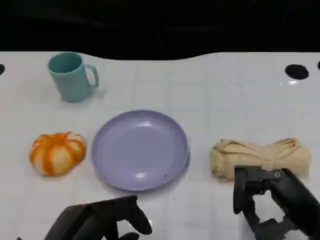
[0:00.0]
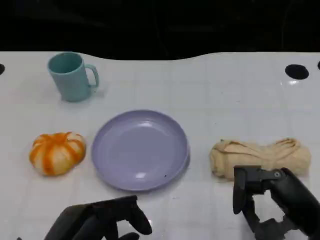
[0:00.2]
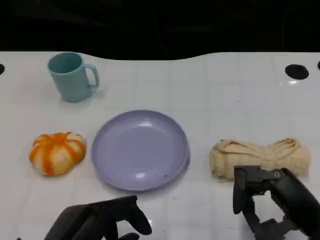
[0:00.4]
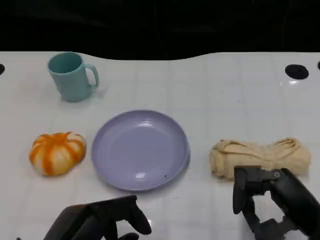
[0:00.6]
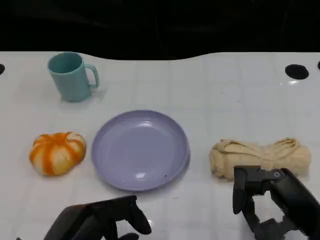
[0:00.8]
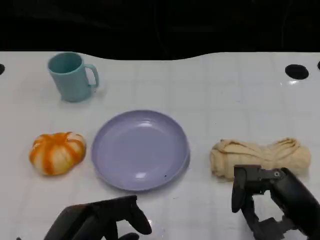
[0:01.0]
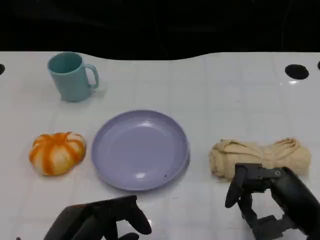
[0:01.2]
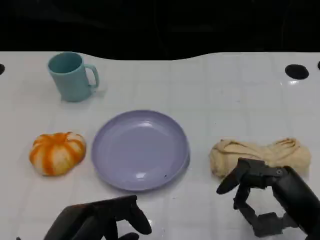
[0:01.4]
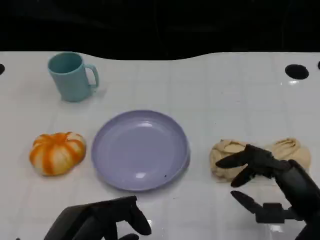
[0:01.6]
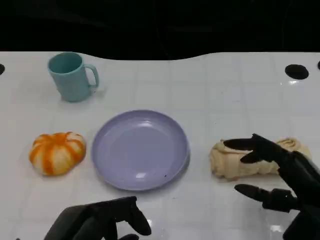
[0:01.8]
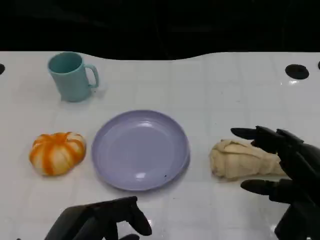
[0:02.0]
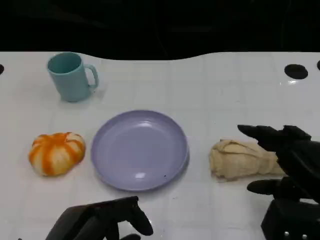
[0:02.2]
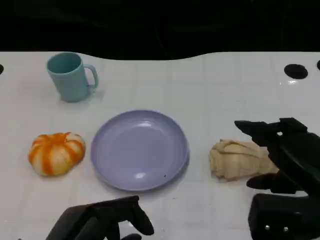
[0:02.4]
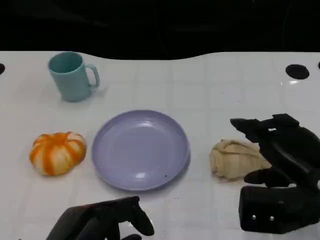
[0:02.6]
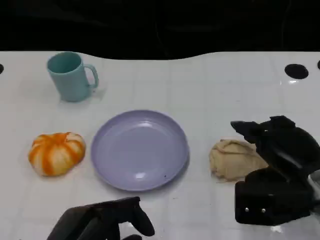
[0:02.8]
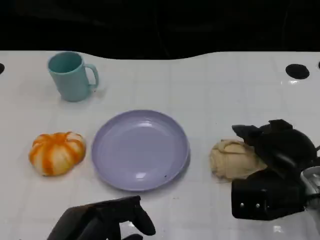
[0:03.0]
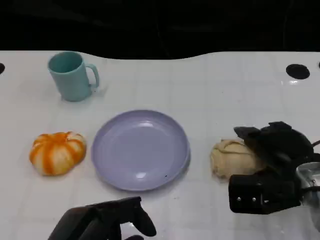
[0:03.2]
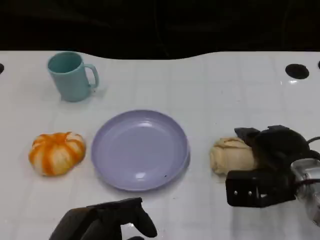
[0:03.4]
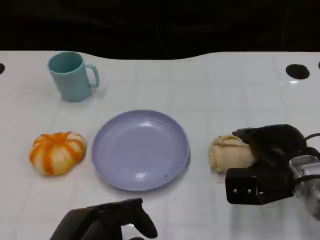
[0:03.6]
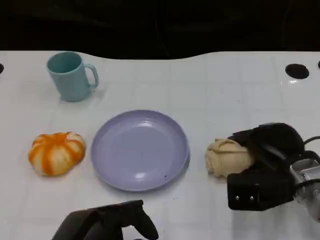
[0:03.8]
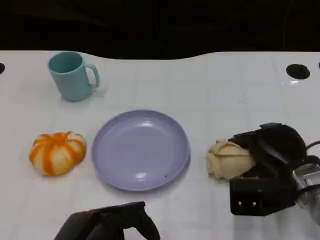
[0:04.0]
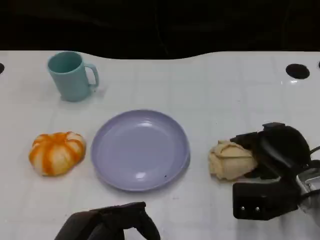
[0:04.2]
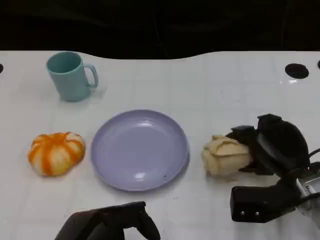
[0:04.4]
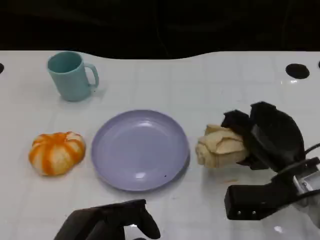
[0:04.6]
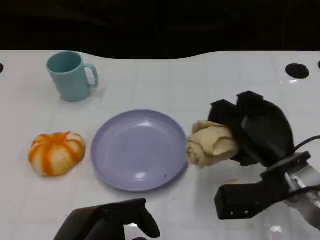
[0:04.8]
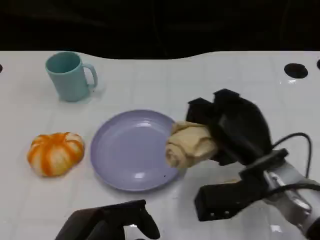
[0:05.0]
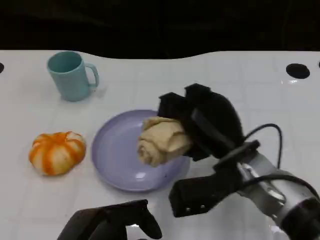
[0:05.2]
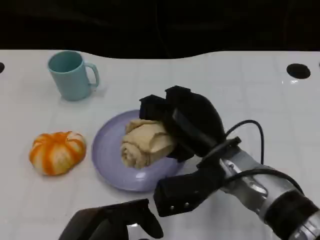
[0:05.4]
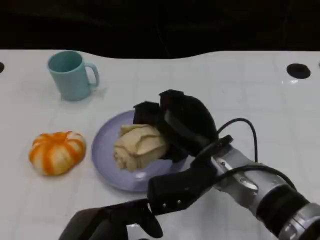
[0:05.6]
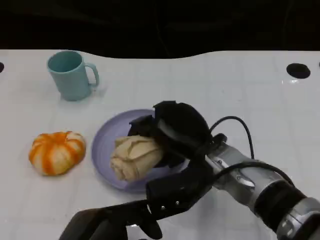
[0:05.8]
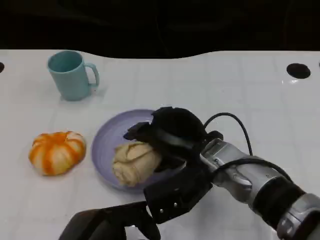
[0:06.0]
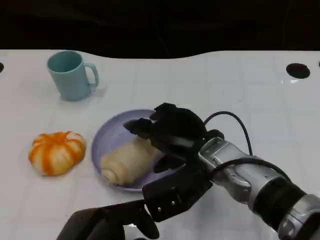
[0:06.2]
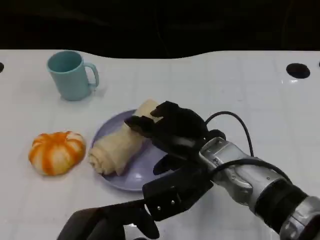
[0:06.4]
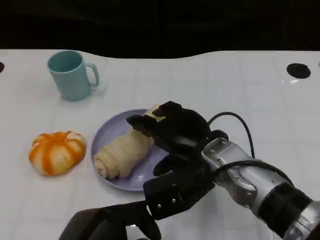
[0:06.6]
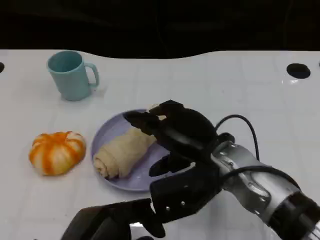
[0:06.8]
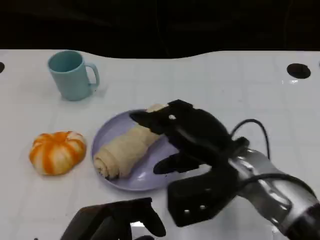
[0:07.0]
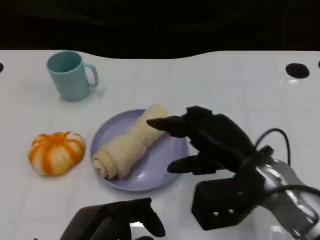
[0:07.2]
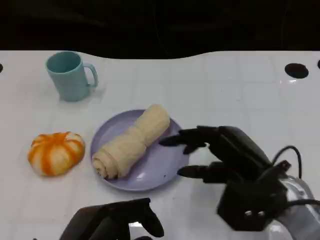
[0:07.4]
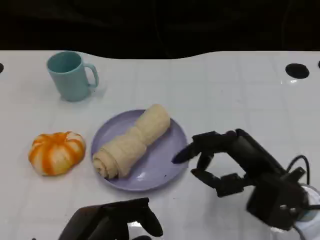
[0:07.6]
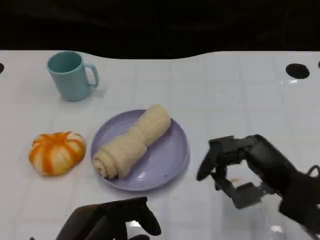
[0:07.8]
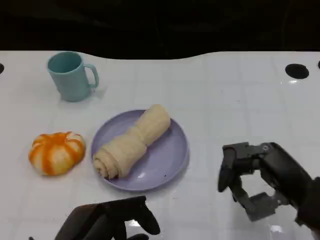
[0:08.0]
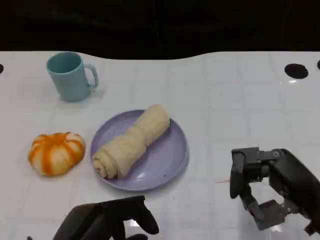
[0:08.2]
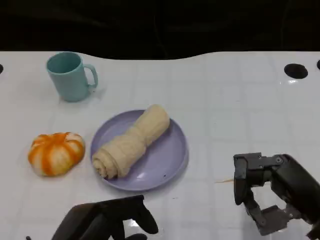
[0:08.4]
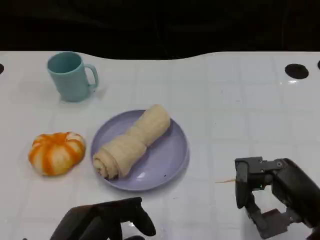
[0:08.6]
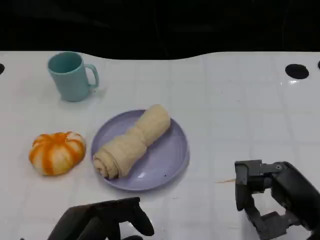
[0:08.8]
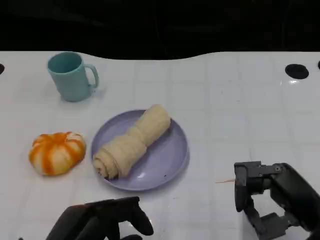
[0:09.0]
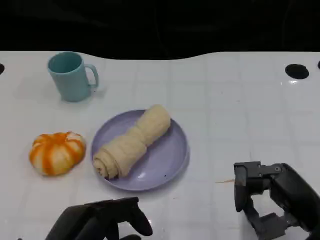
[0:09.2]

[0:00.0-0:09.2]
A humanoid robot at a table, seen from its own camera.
Task of the whole recording: Grasp the towel on the left side of the plate with the left hand and place it into the plate.
0:00.0 to 0:01.6: There are only small adjustments of the hands.
0:01.6 to 0:03.0: The right hand travels forward by about 10 cm.
0:04.6 to 0:06.2: The right hand goes approximately 15 cm to the left.
0:06.2 to 0:07.6: The right hand travels to the right and backward by some 15 cm.
0:07.6 to 0:09.2: The right hand shifts by roughly 5 cm.

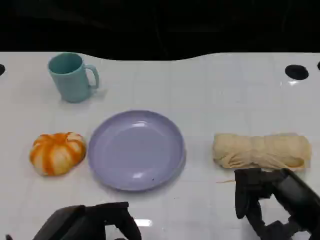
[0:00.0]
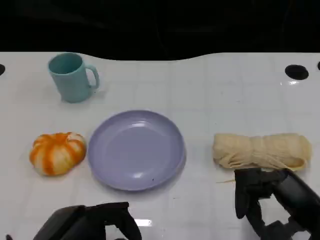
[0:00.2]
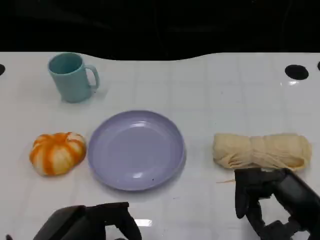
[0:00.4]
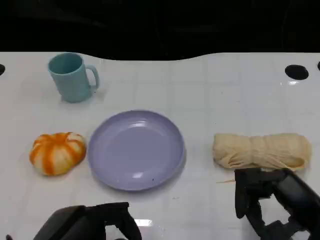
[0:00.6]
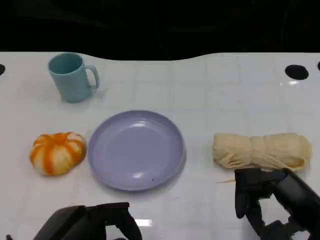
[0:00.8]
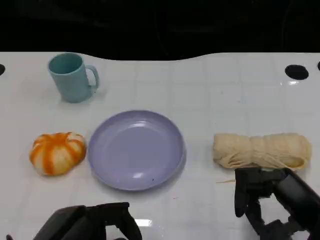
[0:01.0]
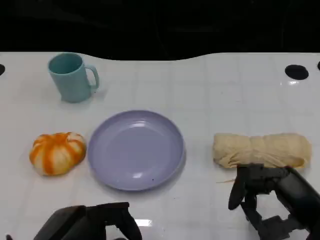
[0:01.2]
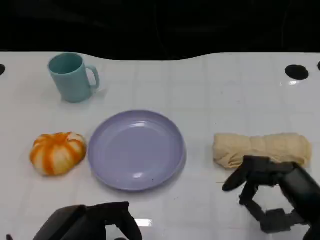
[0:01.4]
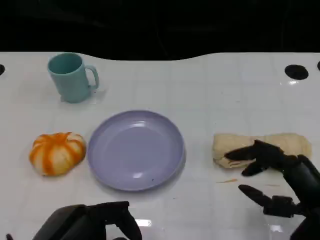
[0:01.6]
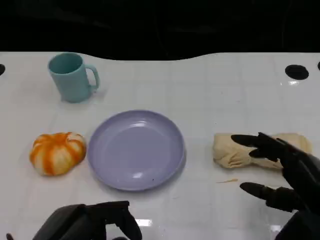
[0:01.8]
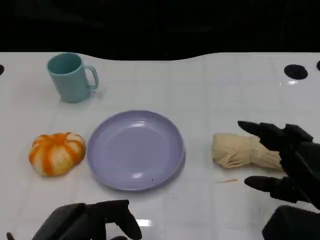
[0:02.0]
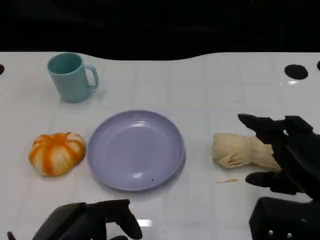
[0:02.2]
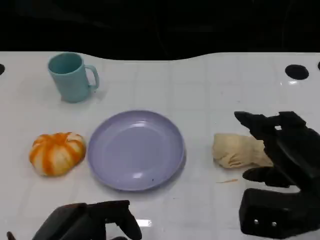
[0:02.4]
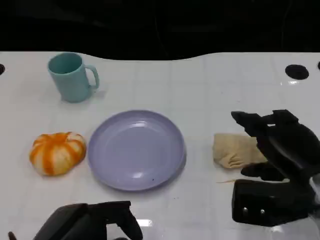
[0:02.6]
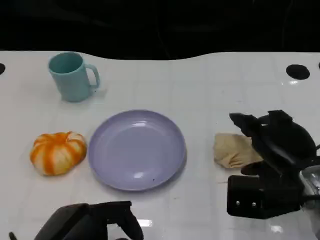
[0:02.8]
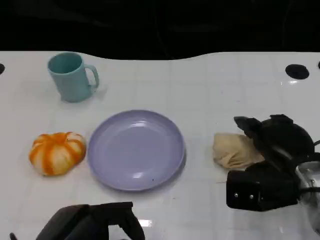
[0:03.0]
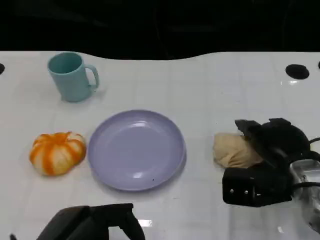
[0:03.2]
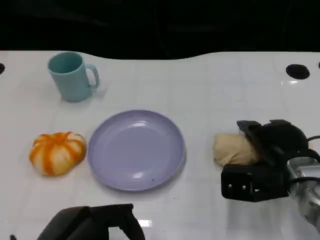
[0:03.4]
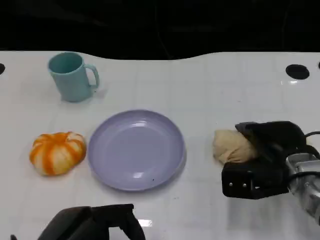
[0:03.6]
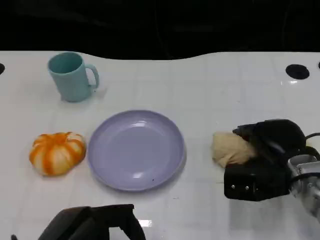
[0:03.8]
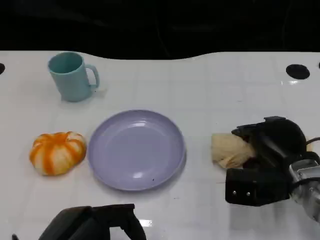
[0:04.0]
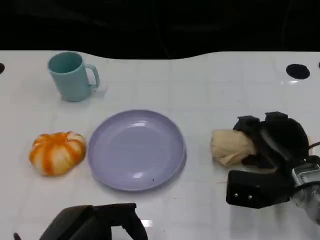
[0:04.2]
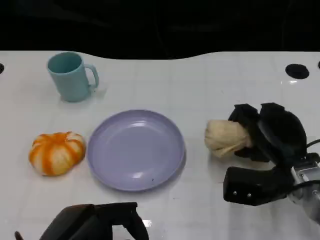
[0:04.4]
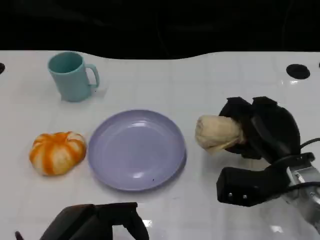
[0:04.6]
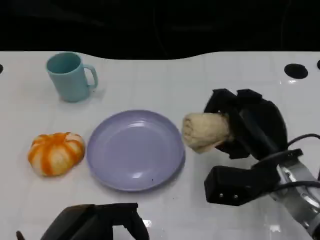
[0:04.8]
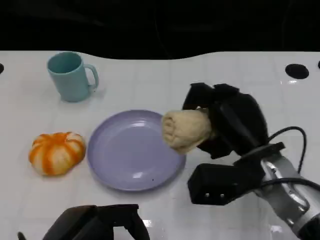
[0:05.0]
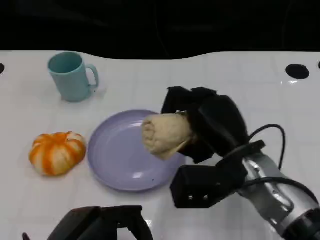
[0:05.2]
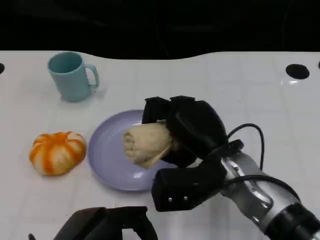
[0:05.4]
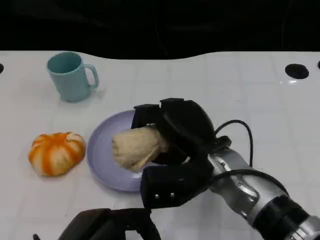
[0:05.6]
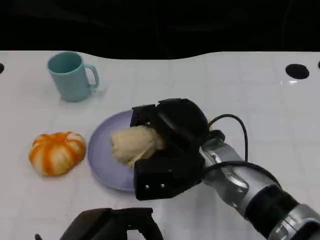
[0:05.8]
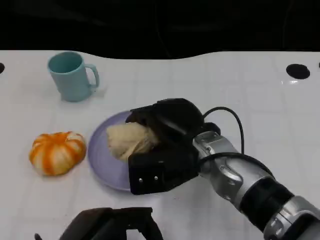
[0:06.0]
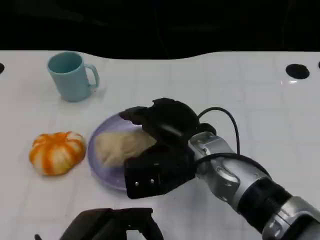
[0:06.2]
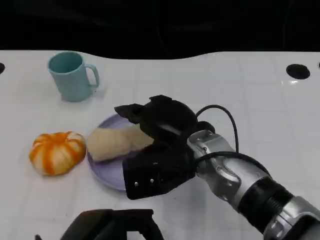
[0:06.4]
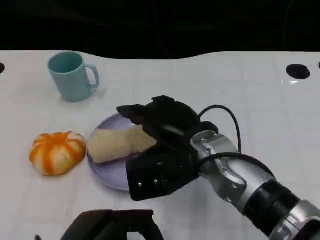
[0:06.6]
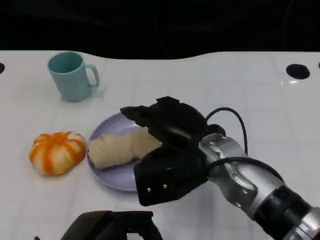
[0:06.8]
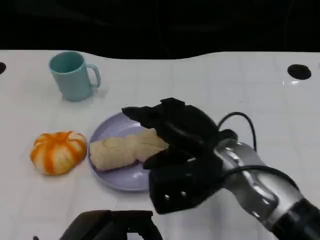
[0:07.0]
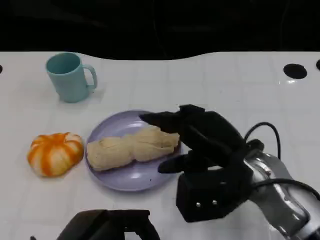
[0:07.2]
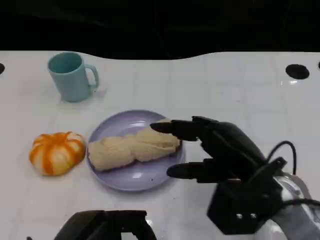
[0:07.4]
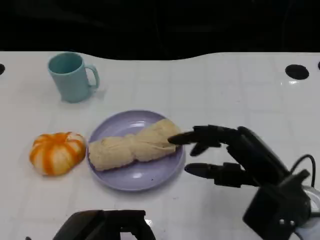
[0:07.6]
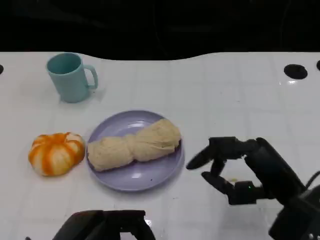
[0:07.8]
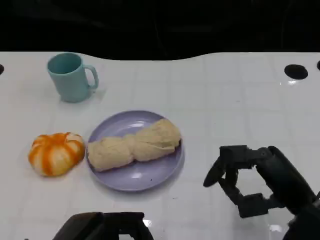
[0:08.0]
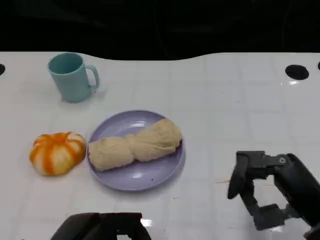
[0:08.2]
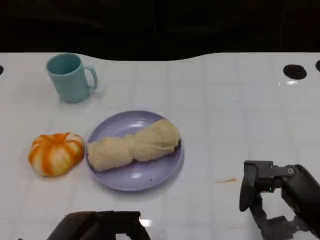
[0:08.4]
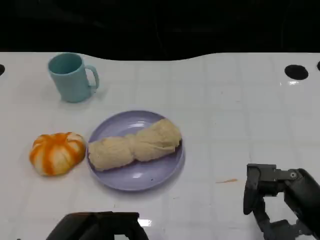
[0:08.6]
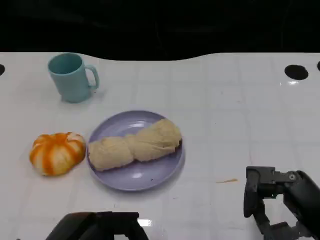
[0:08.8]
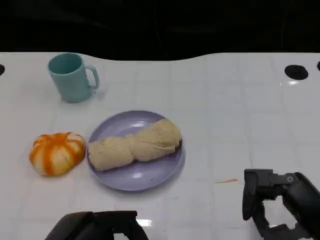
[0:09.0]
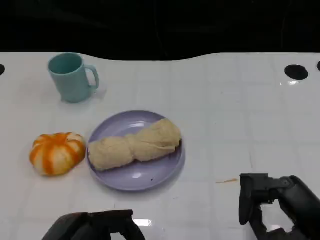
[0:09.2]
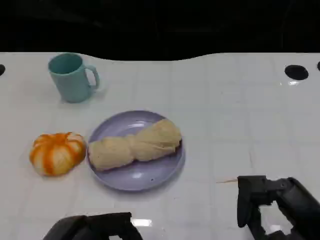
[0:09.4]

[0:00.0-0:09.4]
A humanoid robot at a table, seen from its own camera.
Task of the whole recording: Grasp the towel on the left side of the plate with the left hand and place it into the plate.
0:00.0 to 0:01.6: The hands move only a little.
0:01.6 to 0:03.2: The right hand shifts about 10 cm forward.
0:04.8 to 0:06.2: The right hand is displaced to the left by approximately 10 cm.
0:06.2 to 0:07.8: The right hand goes approximately 15 cm to the right and backward.
0:07.8 to 0:09.4: The right hand moves some 5 cm.

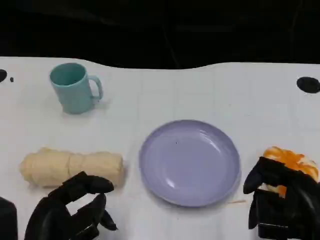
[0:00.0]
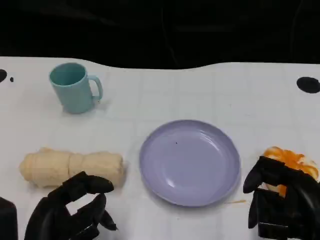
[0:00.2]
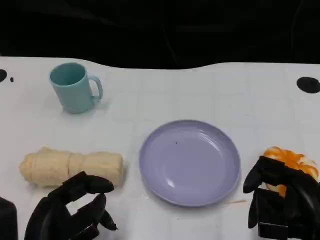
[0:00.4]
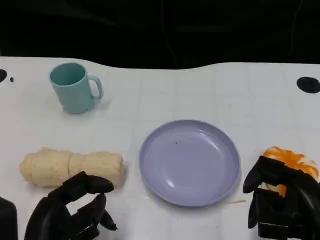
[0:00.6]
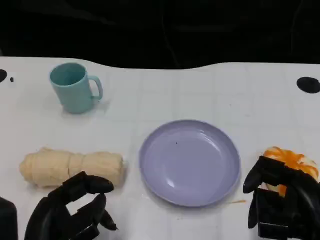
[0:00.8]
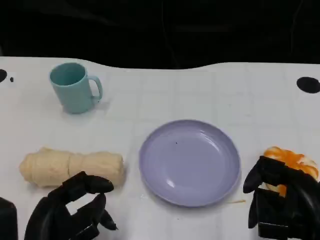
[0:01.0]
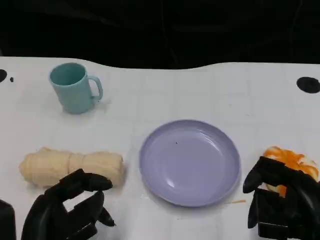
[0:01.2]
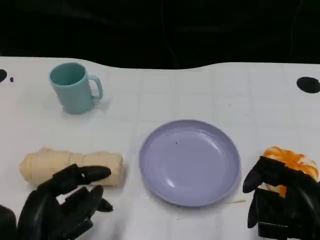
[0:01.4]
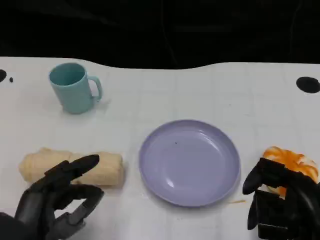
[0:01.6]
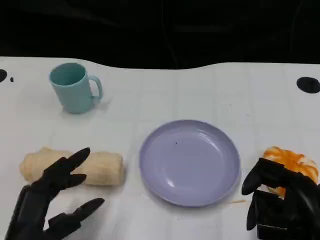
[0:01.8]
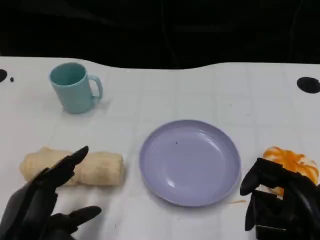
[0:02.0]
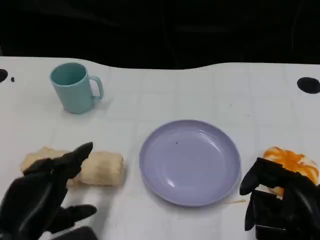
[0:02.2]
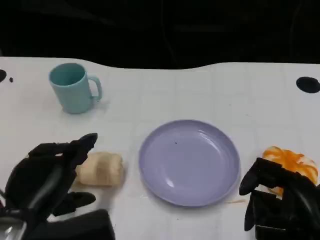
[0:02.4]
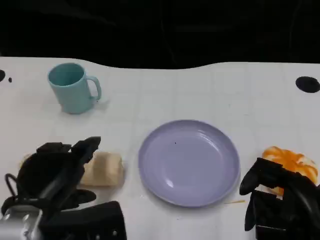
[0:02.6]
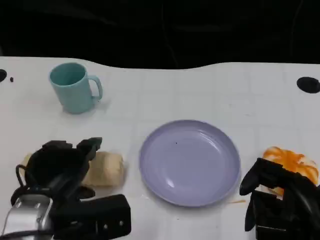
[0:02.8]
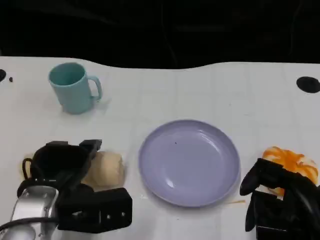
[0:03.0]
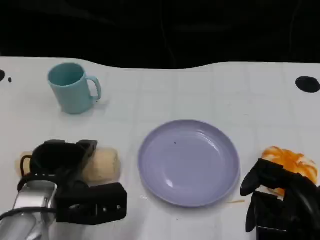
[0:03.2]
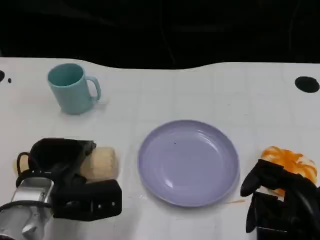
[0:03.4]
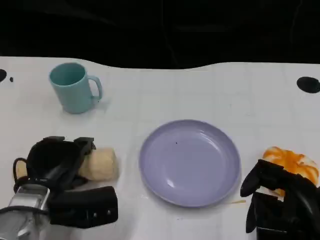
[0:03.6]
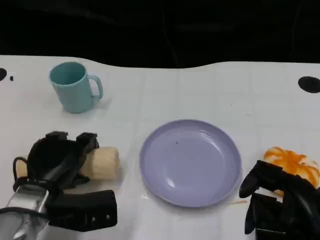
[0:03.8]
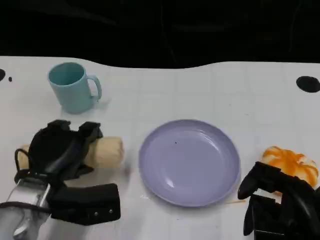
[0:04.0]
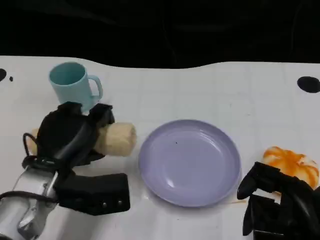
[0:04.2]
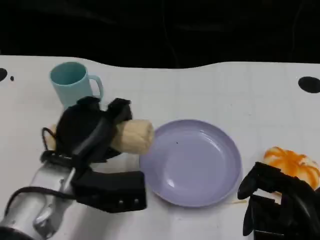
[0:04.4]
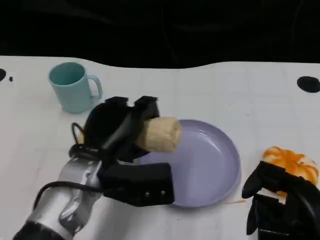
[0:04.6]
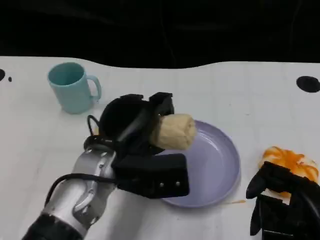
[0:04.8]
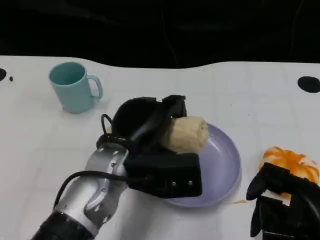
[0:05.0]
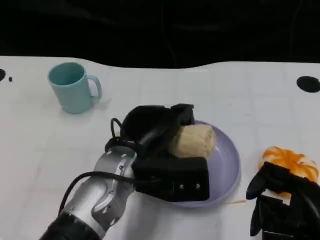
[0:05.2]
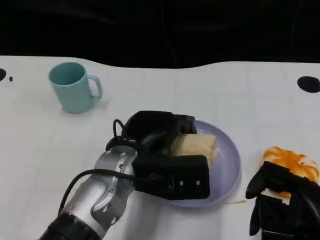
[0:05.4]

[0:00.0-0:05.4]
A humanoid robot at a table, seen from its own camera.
Task of the whole recording: Grasp the towel on the left side of the plate with the left hand and place it into the plate.
0:00.0 to 0:01.4: The hands make only small movements.
0:01.4 to 0:02.8: The left hand travels forward by some 5 cm.
0:02.8 to 0:04.0: The hands stay close to where they were, moving slightly.
0:04.0 to 0:05.4: The left hand travels to the right and upward by roughly 15 cm.
